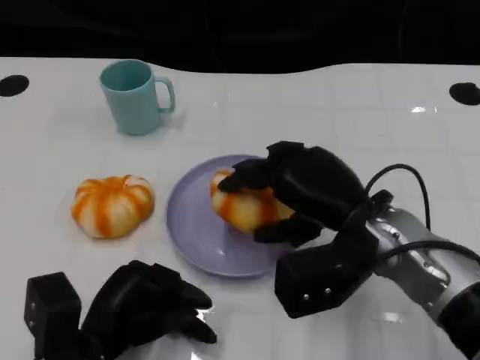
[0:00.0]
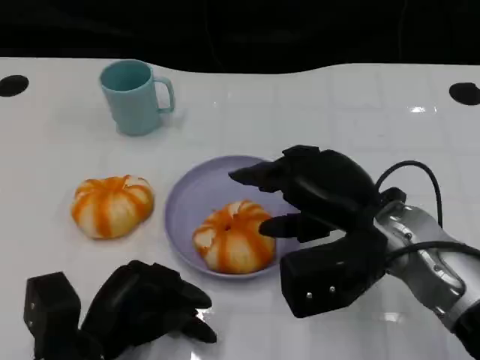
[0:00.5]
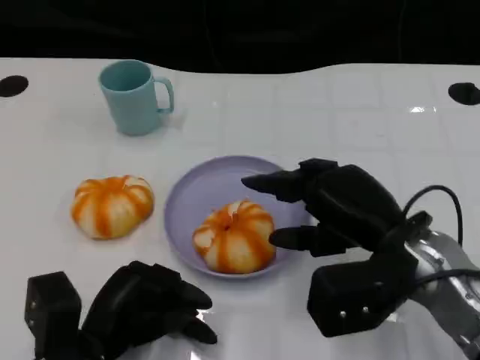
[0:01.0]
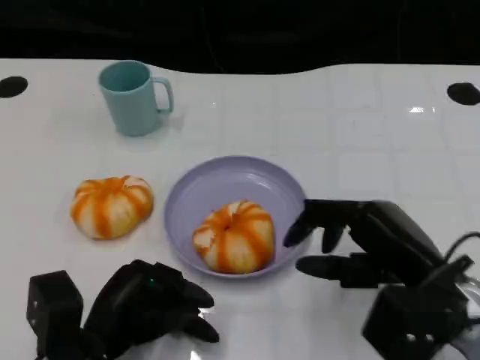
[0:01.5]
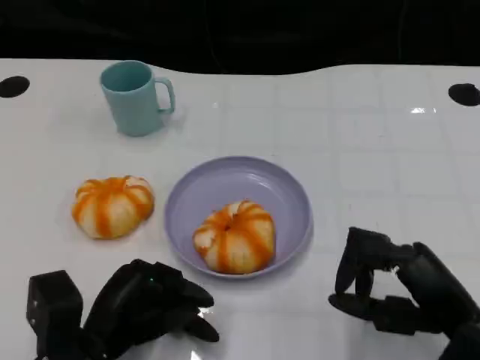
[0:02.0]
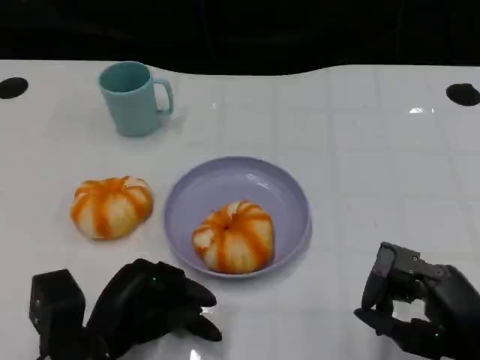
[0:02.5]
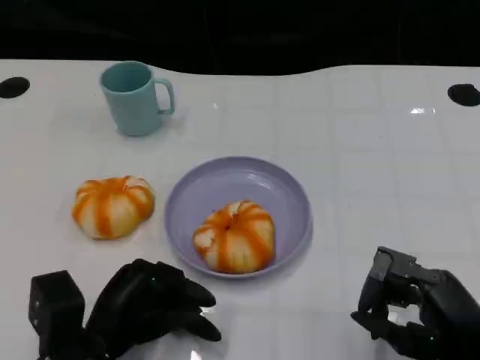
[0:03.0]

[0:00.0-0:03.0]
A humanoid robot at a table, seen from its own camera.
Task of the whole recording: Grasp the bread from the table and place it into the plate.
0.0 to 1.5 s: The right hand shifts about 10 cm to the right and backward.
1.5 to 3.0 s: The right hand goes roughly 5 cm backward.

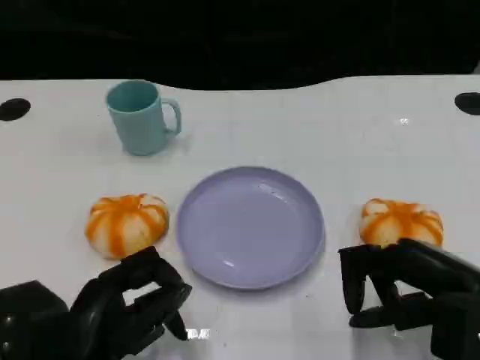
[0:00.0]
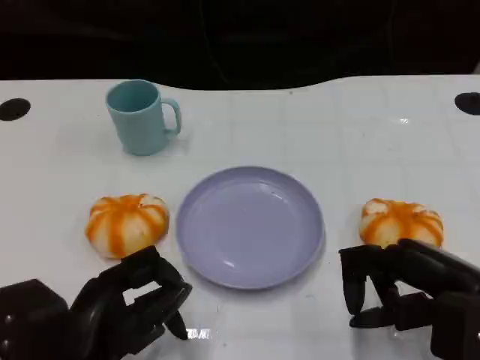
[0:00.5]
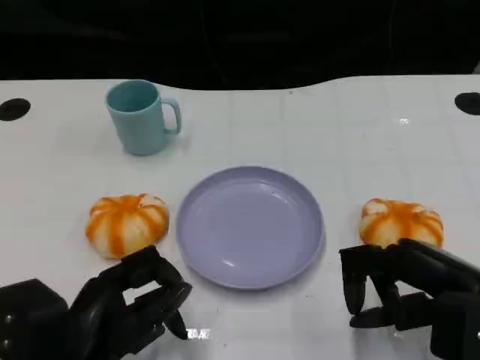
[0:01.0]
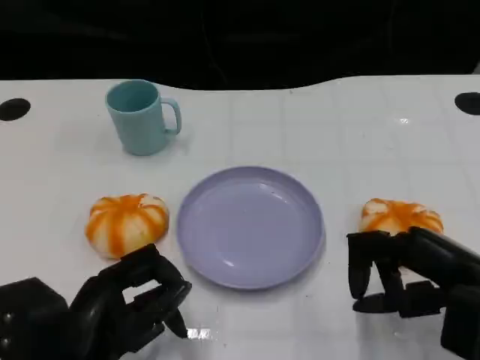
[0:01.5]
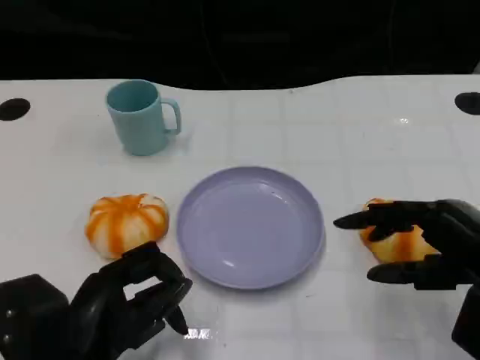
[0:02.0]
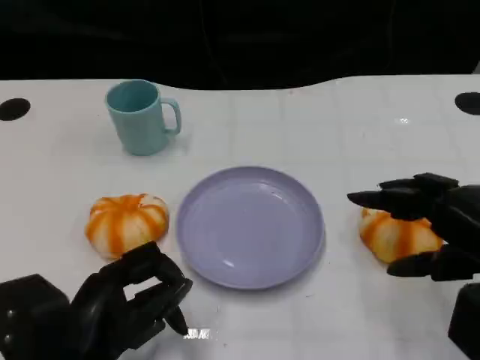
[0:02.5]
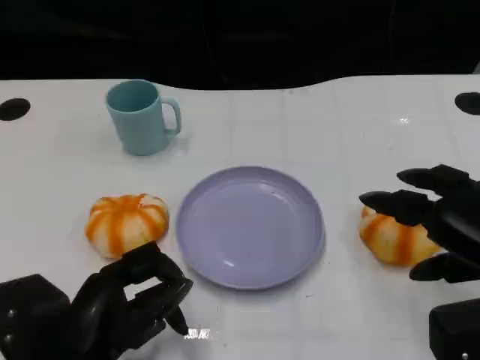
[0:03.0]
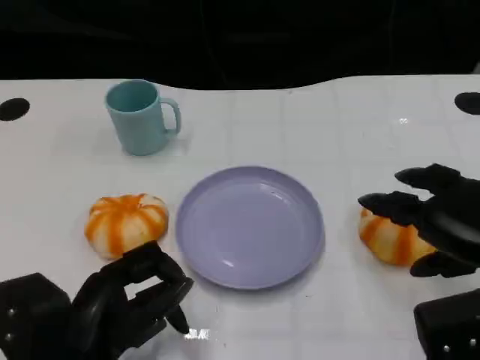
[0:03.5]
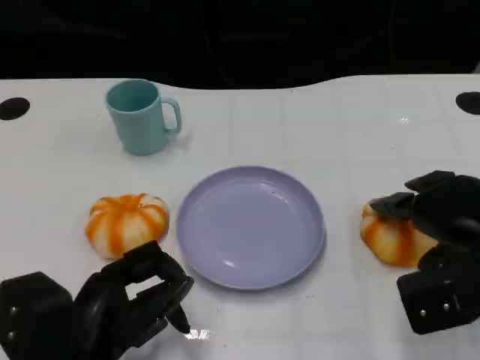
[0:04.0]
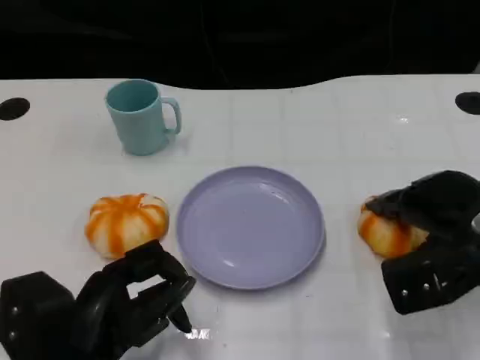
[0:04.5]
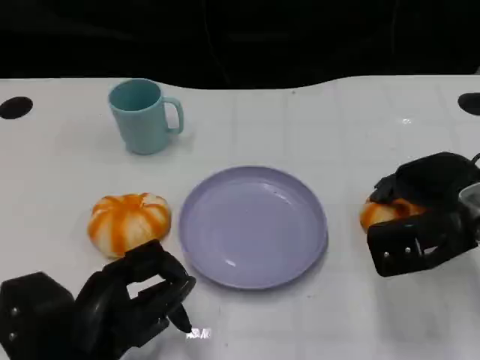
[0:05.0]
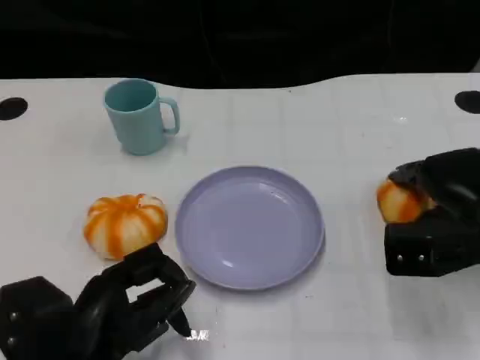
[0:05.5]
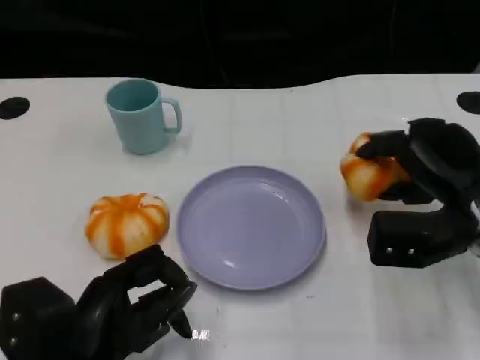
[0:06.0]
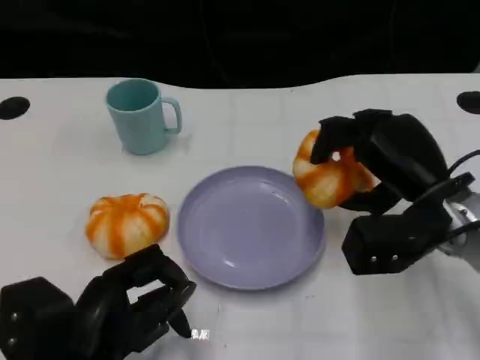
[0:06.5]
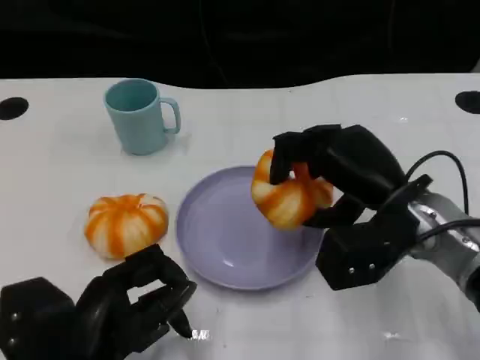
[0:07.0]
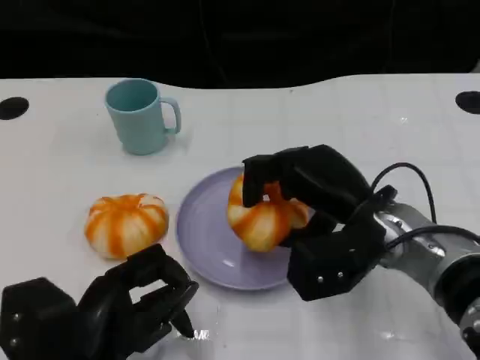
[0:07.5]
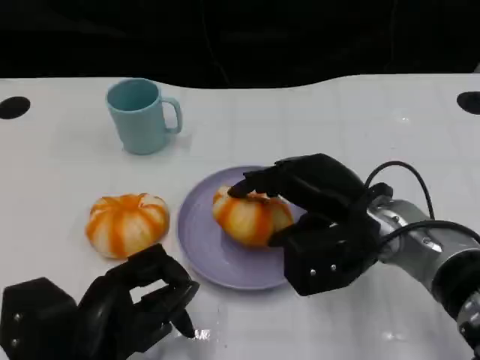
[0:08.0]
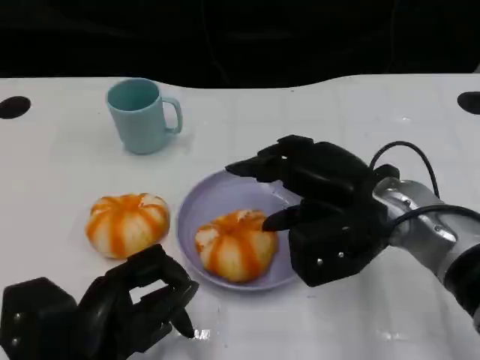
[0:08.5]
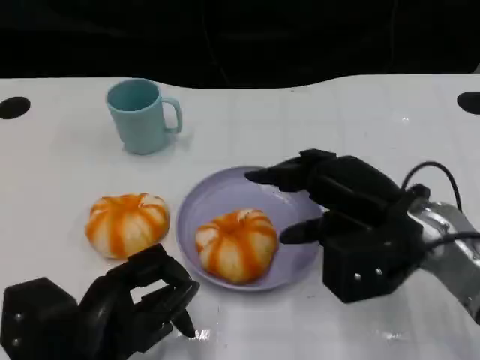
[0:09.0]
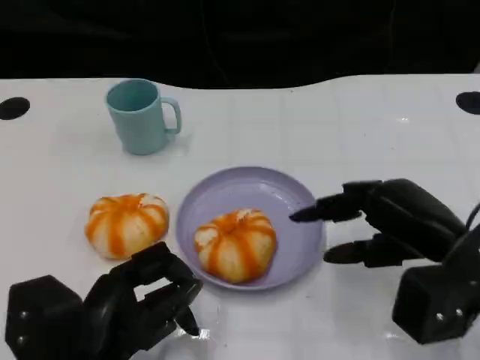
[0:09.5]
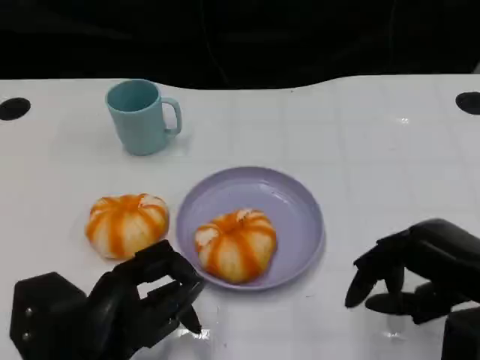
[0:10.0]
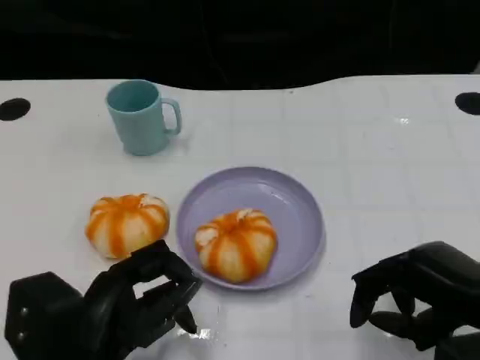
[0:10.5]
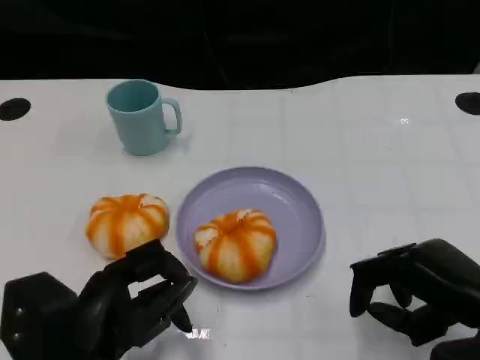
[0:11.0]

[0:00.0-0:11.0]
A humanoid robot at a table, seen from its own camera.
Task of the whole recording: Grasp the bread from the table and place it into the plate.
0.0 to 2.0 s: The hands make only small movements.
3.5 to 5.5 s: The right hand shifts roughly 5 cm forward.
5.5 to 7.5 s: The right hand shifts approximately 10 cm to the left.
7.5 to 9.0 s: The hands move only a little.
9.0 to 11.0 s: The right hand shifts approximately 10 cm backward and to the right.

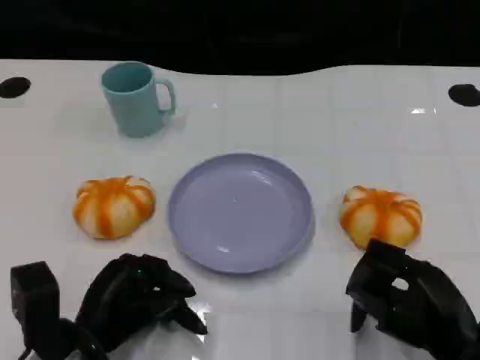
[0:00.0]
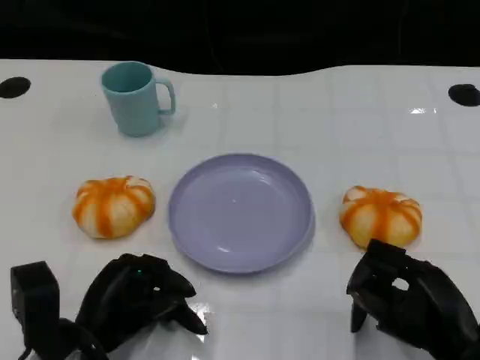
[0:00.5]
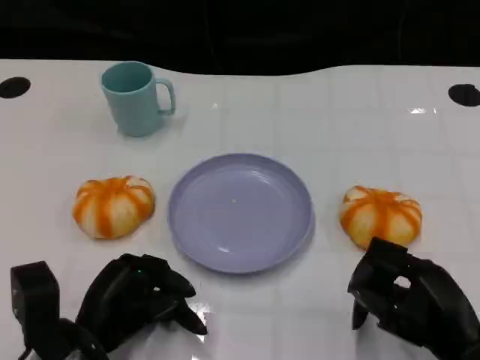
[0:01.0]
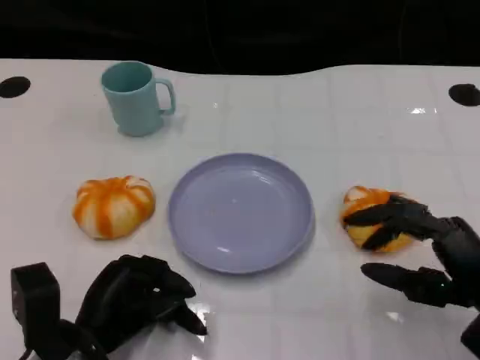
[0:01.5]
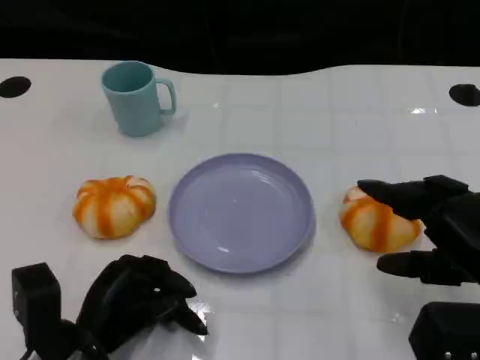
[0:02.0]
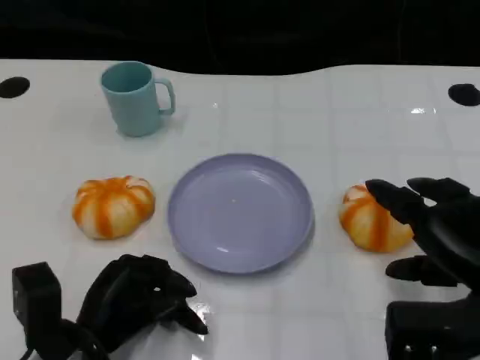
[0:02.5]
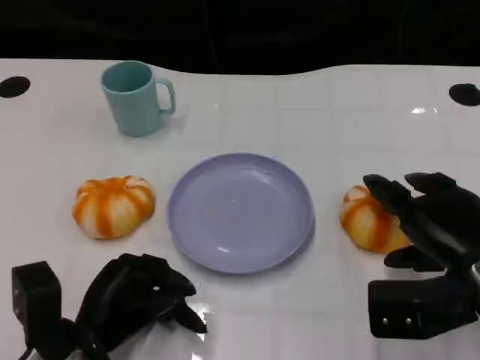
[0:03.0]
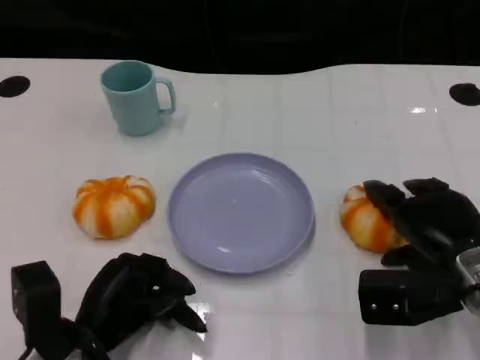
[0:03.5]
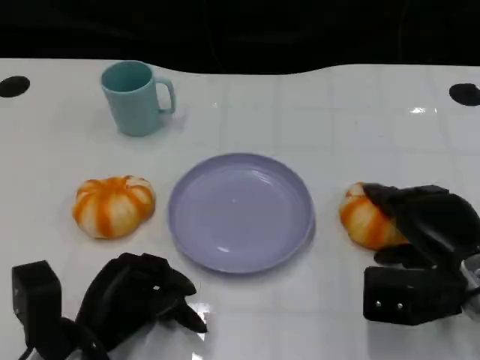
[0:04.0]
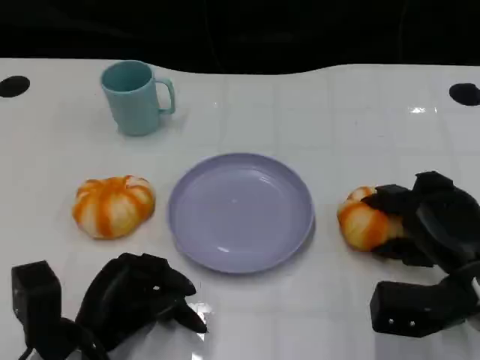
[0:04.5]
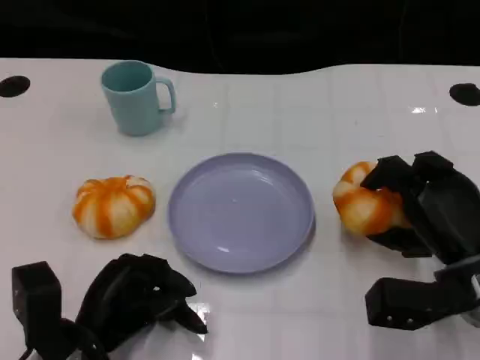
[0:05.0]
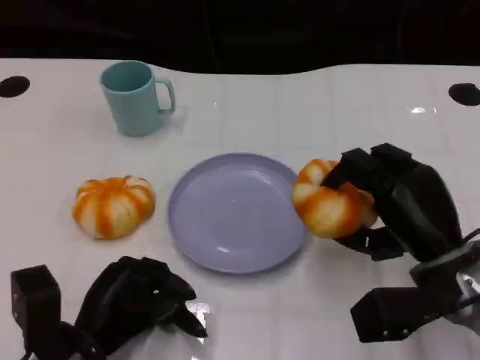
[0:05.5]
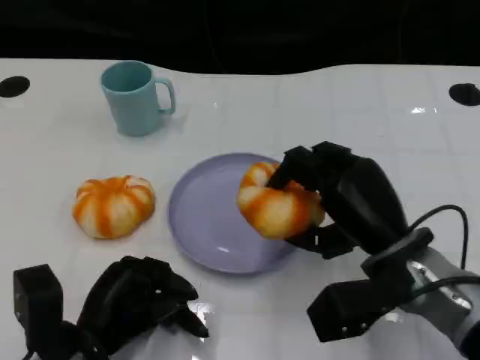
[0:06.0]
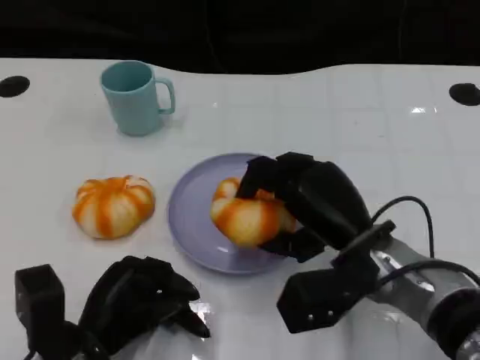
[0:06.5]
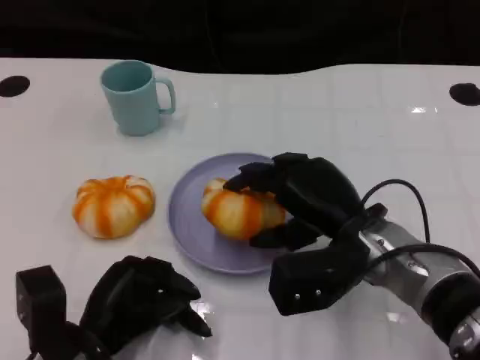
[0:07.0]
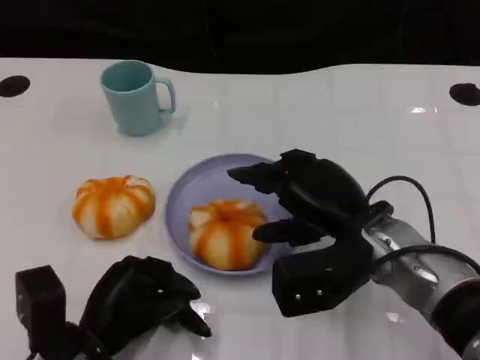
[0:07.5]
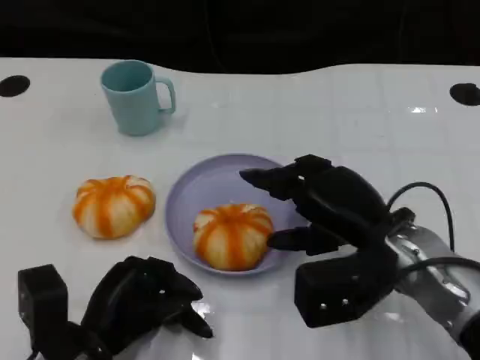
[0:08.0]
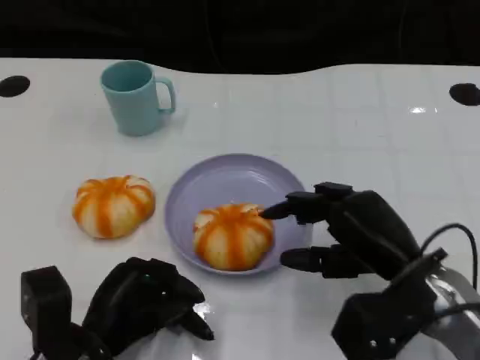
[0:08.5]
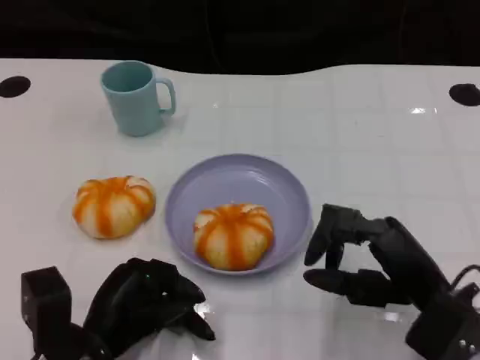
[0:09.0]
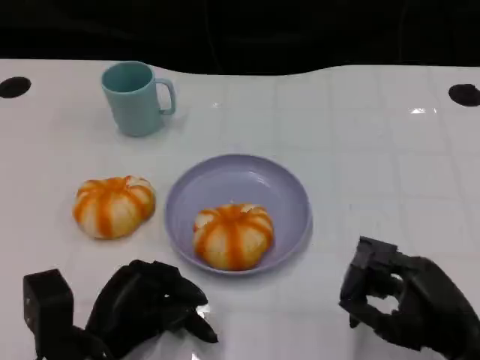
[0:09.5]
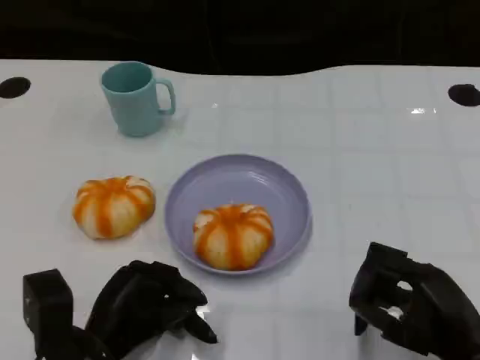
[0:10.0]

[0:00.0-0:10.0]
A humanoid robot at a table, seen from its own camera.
Task of the whole recording: Grasp the bread from the table and place it into the plate.
0.0 to 2.0 s: The right hand moves upward, roughly 5 cm.
2.0 to 4.0 s: The right hand shifts approximately 10 cm downward and forward.
4.0 to 6.0 s: The right hand goes approximately 10 cm to the left.
8.0 to 10.0 s: The right hand shifts roughly 15 cm backward and to the right.

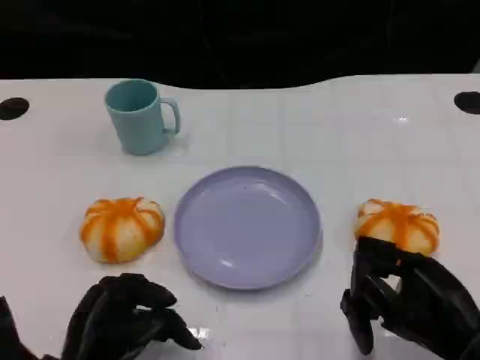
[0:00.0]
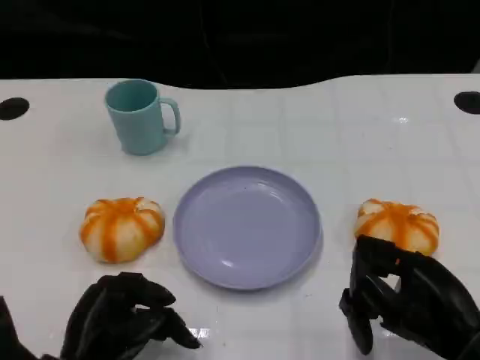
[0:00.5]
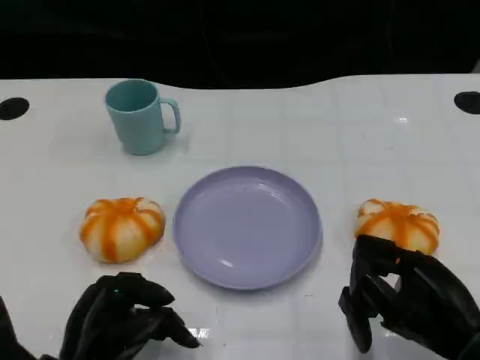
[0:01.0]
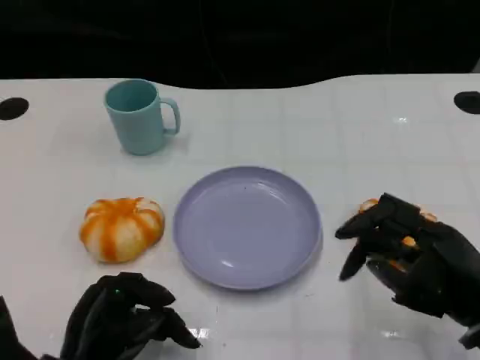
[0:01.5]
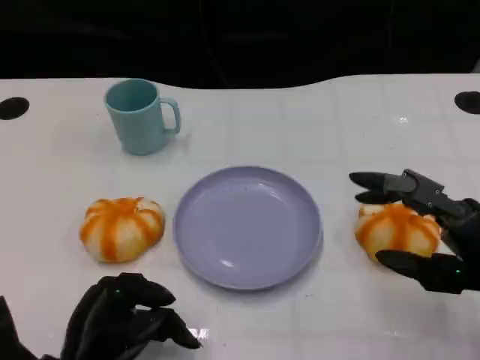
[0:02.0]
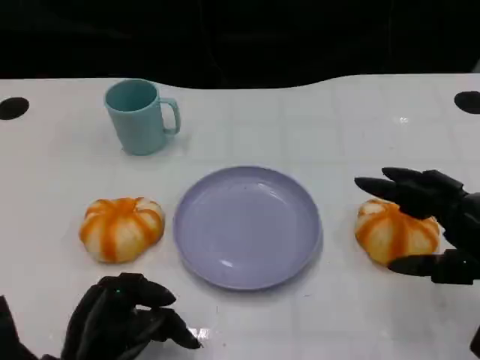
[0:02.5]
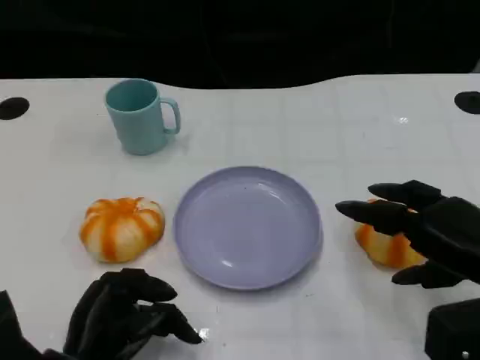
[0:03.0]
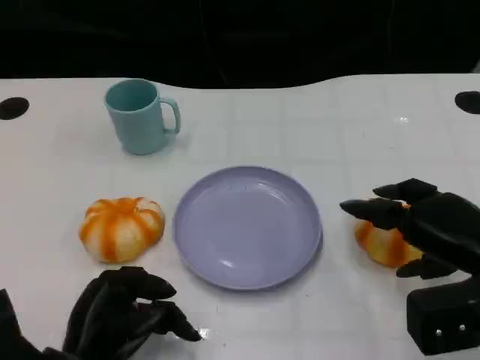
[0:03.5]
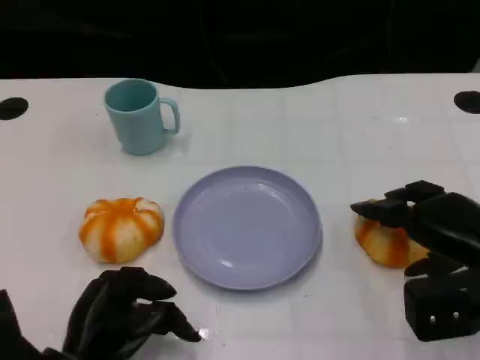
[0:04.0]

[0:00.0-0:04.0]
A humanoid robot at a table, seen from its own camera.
Task of the whole recording: Grasp the bread from the table and place it into the plate.
0.0 to 2.0 s: The right hand changes place by roughly 5 cm.
2.0 to 4.0 s: The right hand moves forward, roughly 5 cm.
